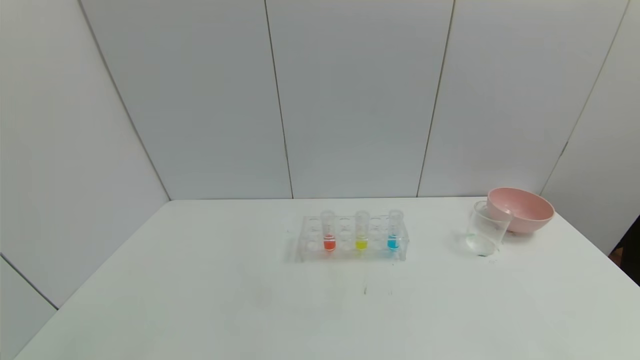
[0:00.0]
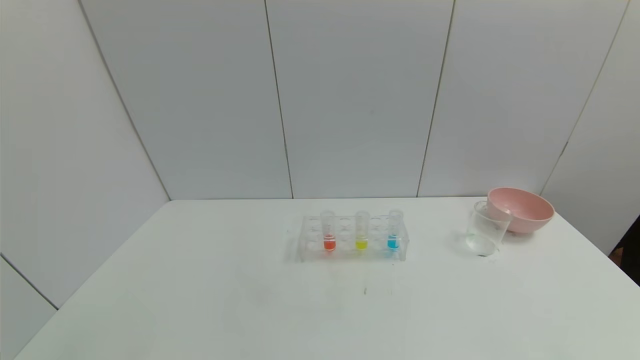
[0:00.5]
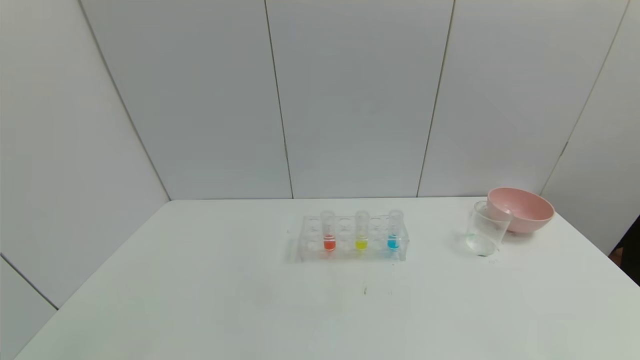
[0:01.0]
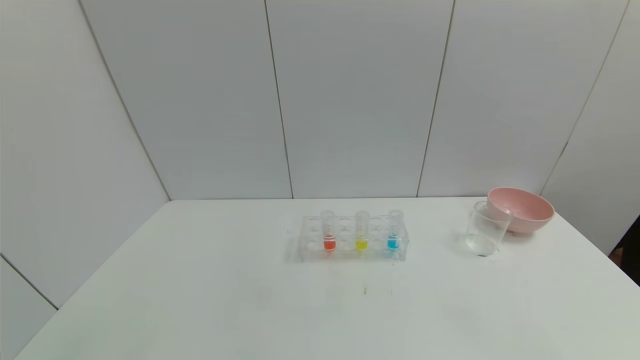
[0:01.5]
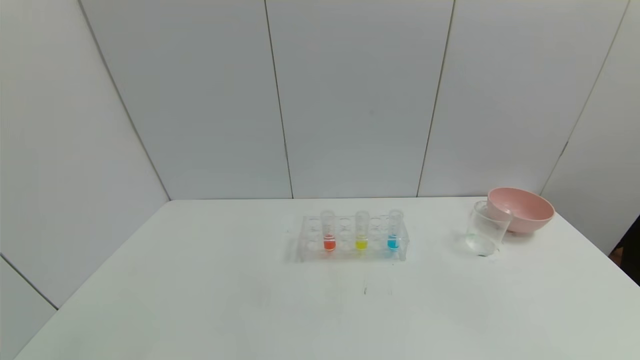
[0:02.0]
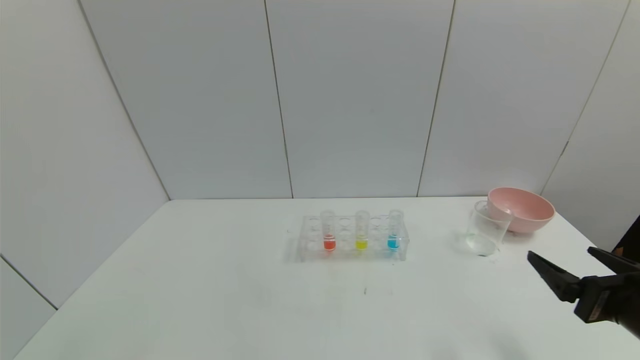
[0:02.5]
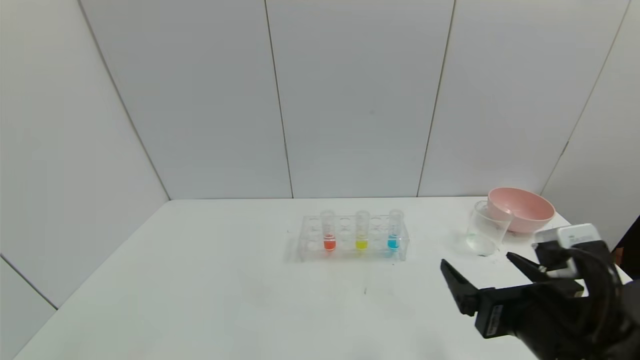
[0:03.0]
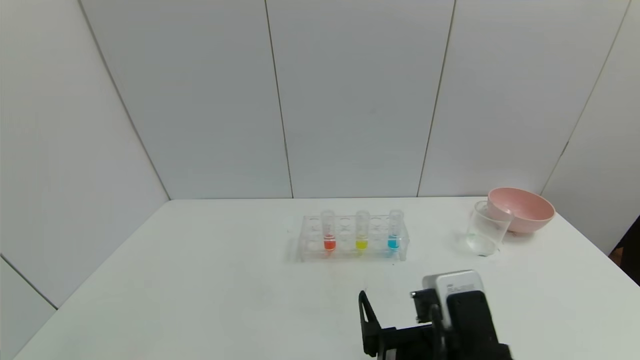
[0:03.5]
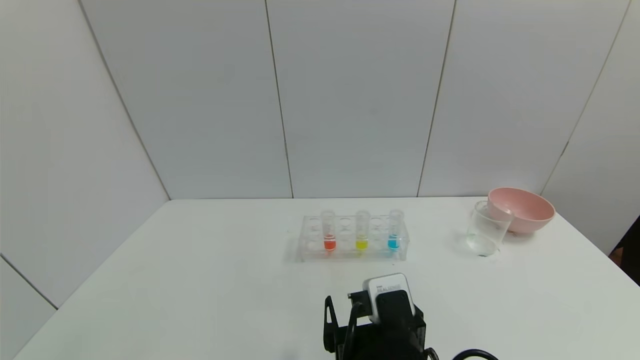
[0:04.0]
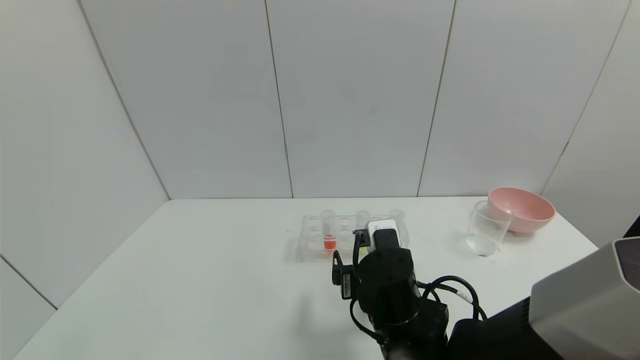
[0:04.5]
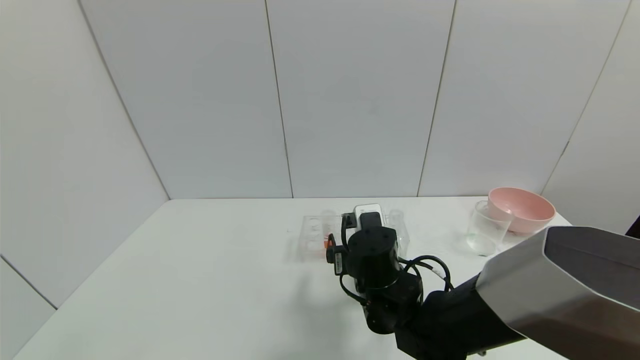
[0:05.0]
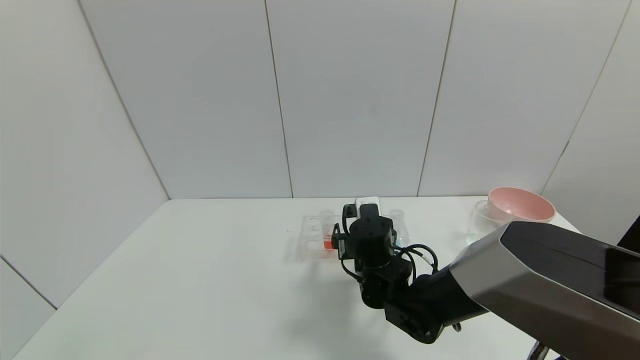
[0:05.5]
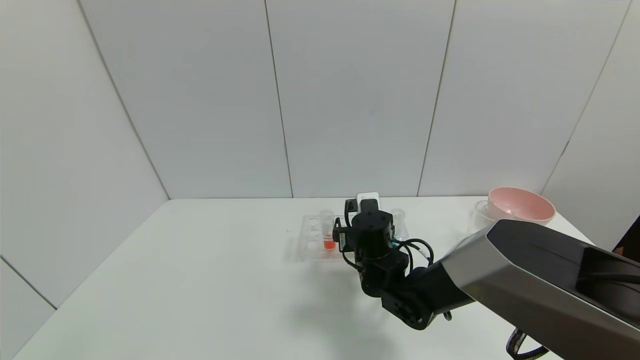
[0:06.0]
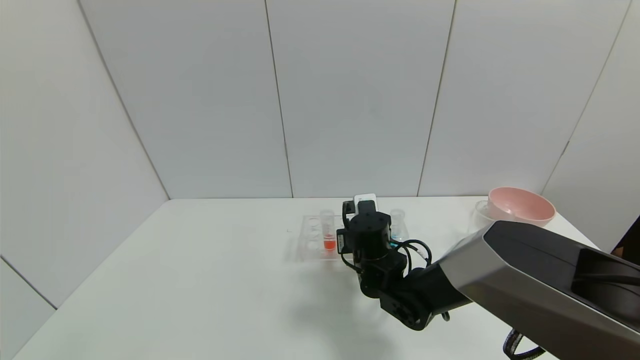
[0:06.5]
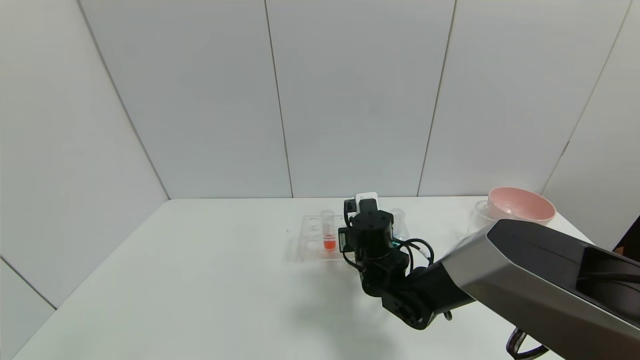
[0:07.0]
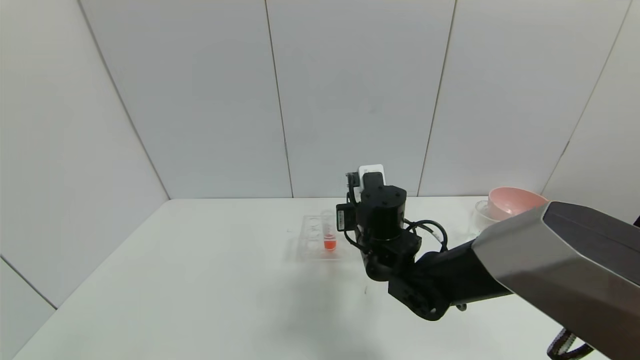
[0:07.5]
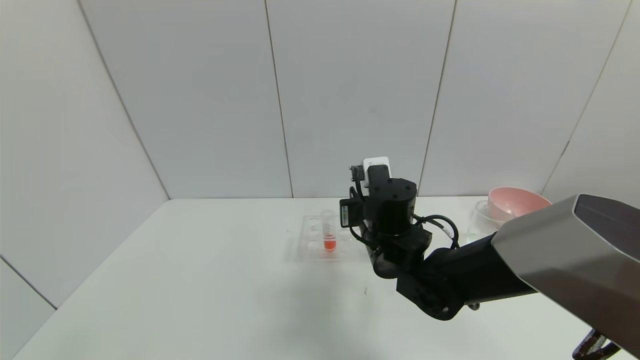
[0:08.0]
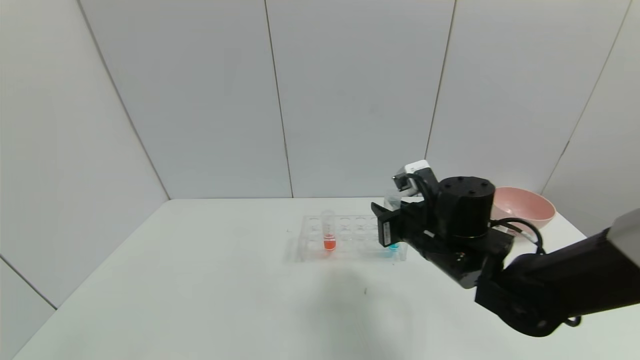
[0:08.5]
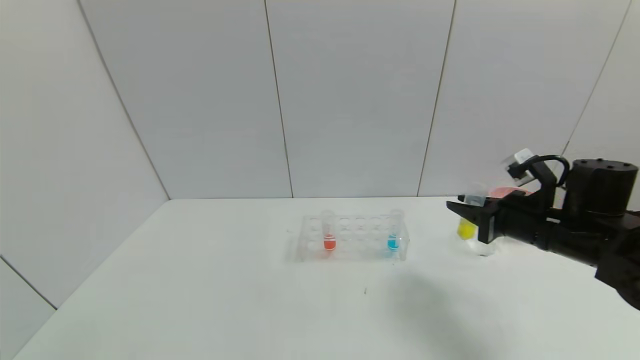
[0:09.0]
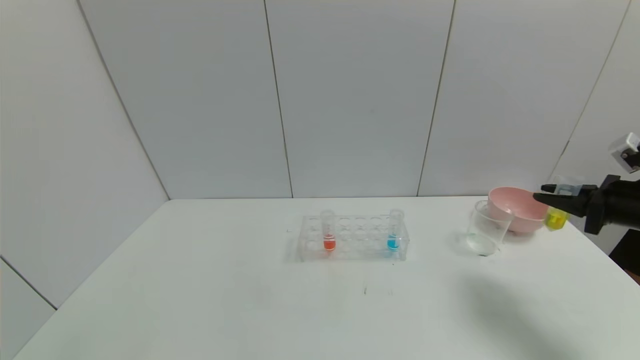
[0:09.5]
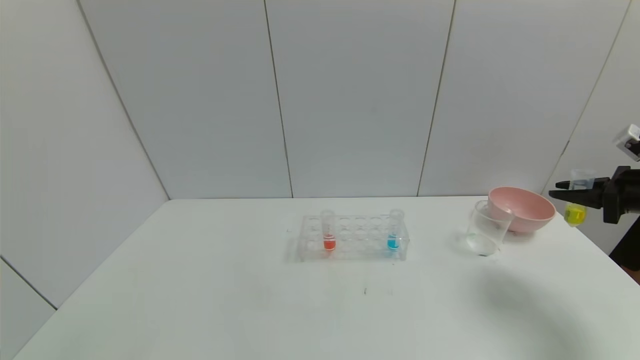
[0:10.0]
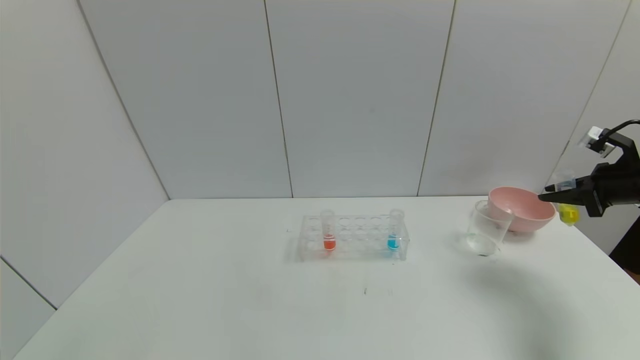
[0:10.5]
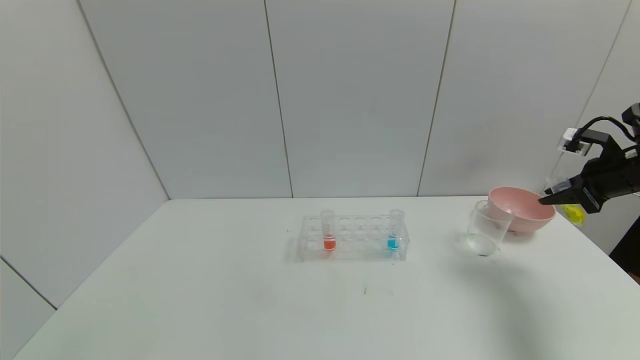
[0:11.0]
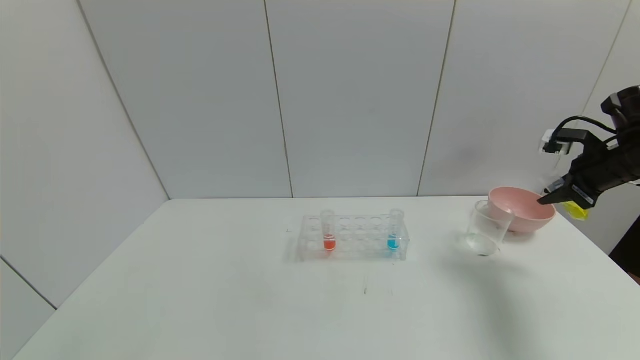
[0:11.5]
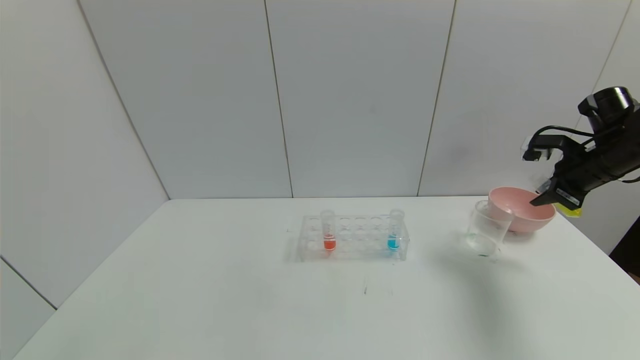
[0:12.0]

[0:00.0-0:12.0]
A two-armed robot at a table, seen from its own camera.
Task of the whole recording: pick up the test tube with yellow pigment and the test tube with blue pigment by grippers and pour them into the beaker.
Step, 0:00.0 to 0:09.0: Pick up the test tube containing the yellow reagent with right gripper.
0:02.0 to 0:04.0: The right gripper shifts approximately 30 cm to the left.
0:04.0 to 0:06.0: The right gripper shifts approximately 20 cm forward.
0:06.0 to 0:08.0: The right gripper travels upward by roughly 5 cm, and closes.
0:08.0 to 0:10.0: The right gripper moves to the right, approximately 40 cm.
0:10.0 to 0:12.0: The right gripper travels forward and to the left by roughly 10 cm.

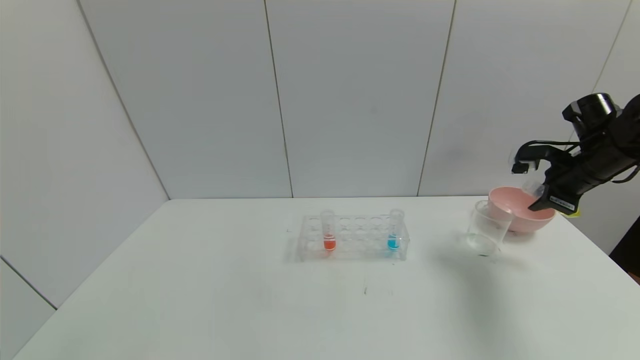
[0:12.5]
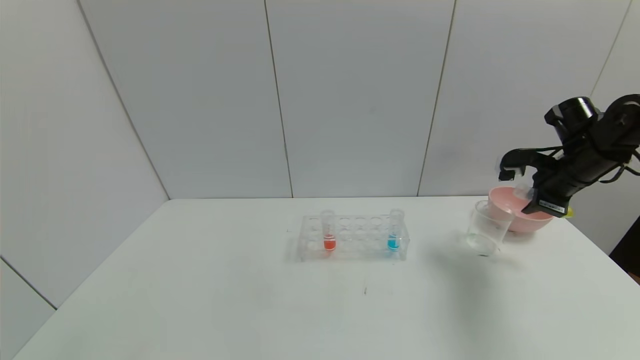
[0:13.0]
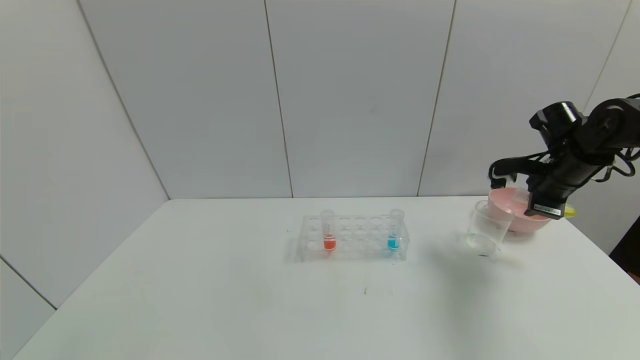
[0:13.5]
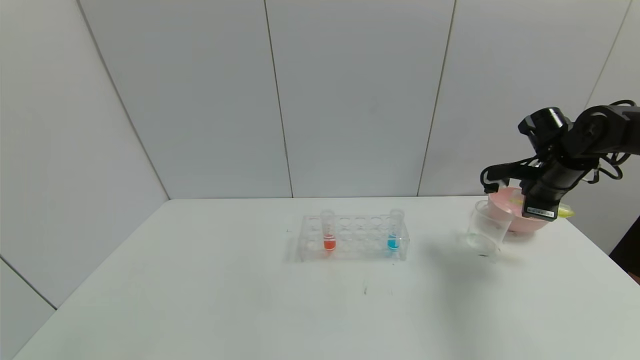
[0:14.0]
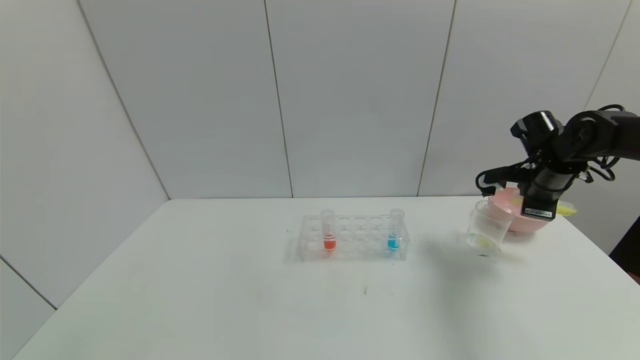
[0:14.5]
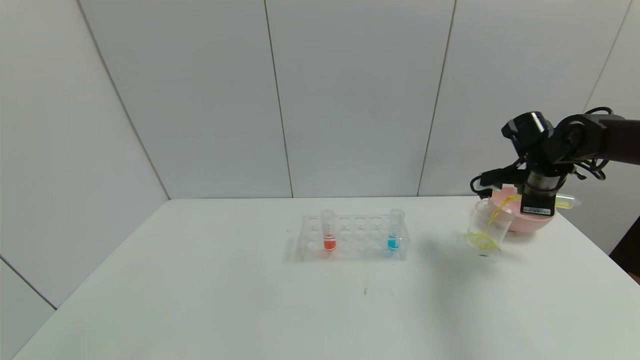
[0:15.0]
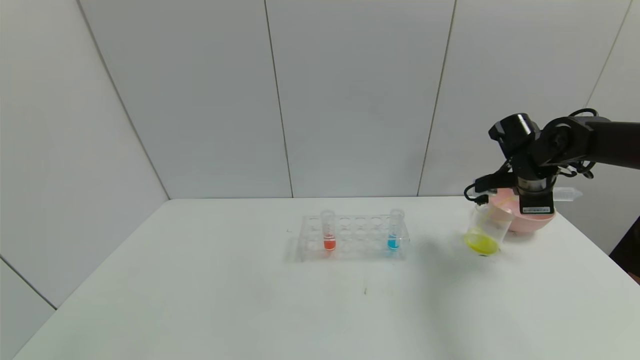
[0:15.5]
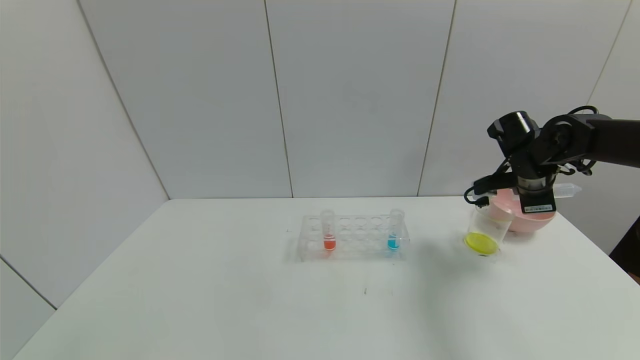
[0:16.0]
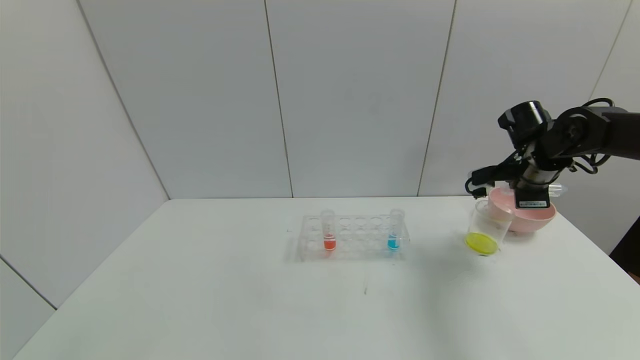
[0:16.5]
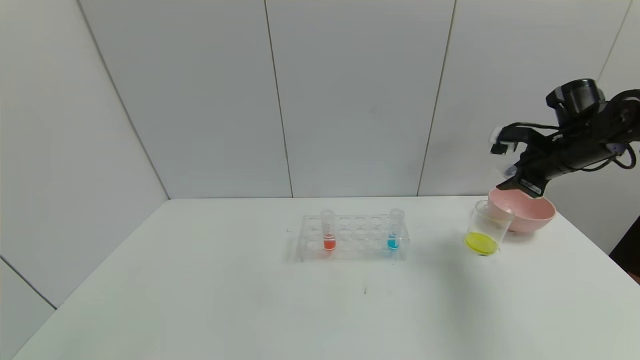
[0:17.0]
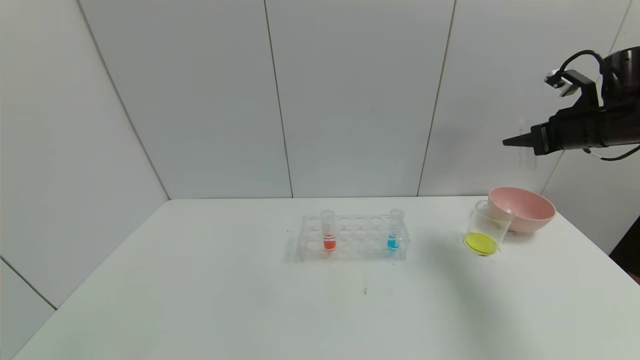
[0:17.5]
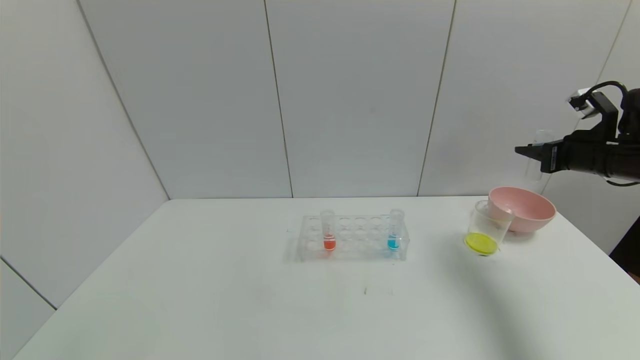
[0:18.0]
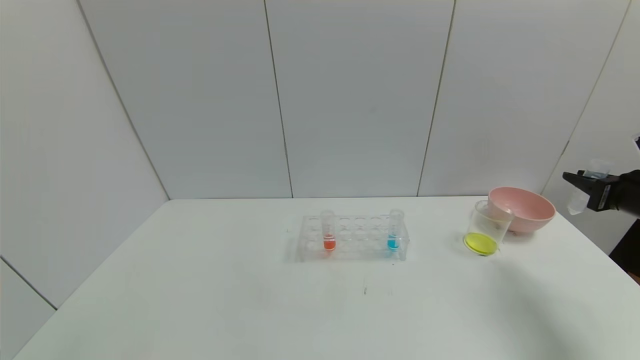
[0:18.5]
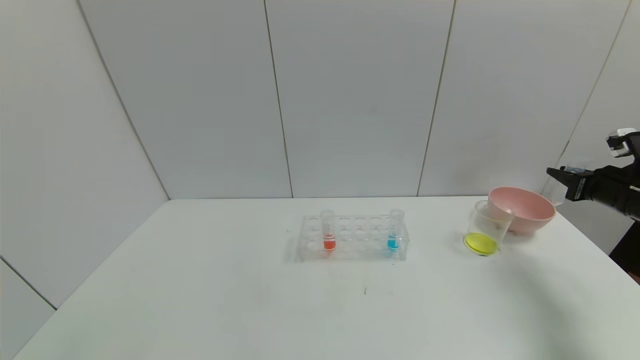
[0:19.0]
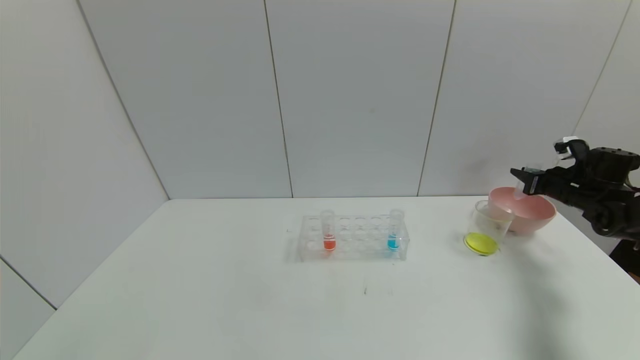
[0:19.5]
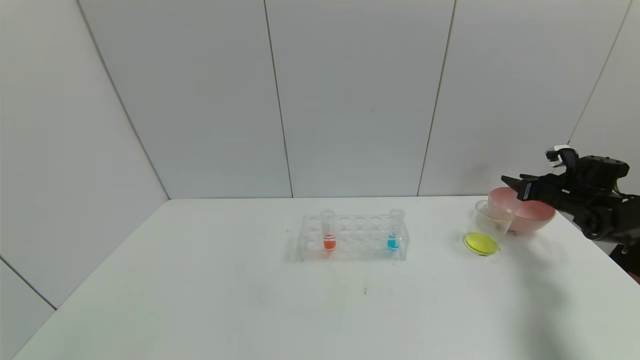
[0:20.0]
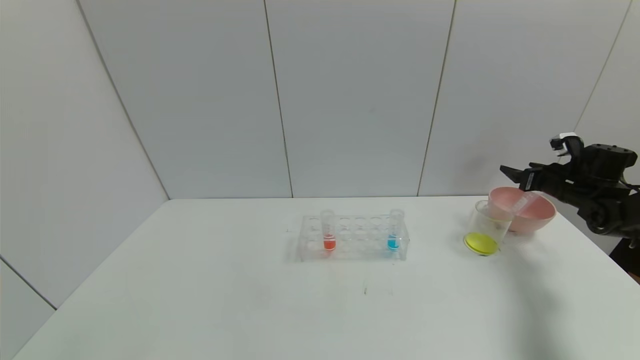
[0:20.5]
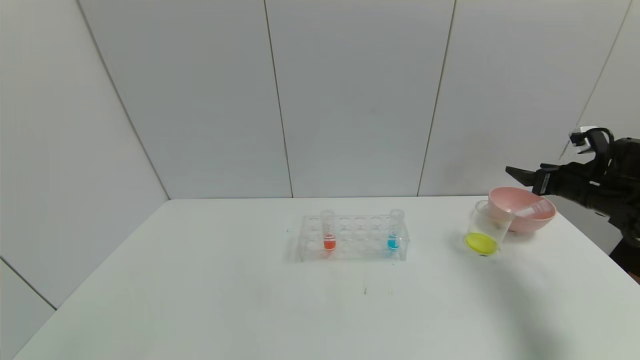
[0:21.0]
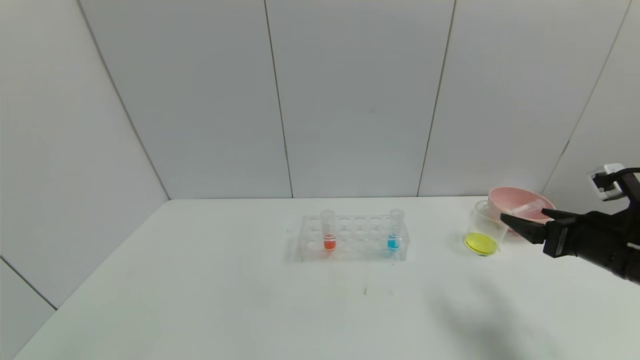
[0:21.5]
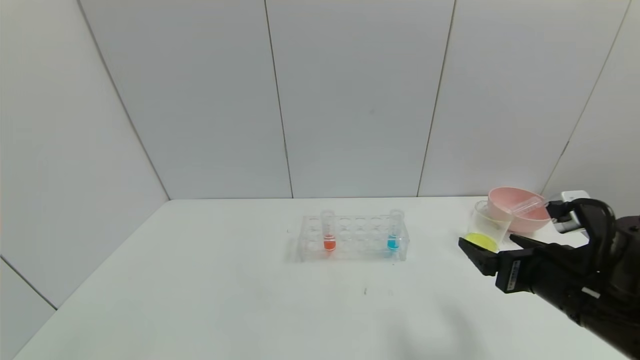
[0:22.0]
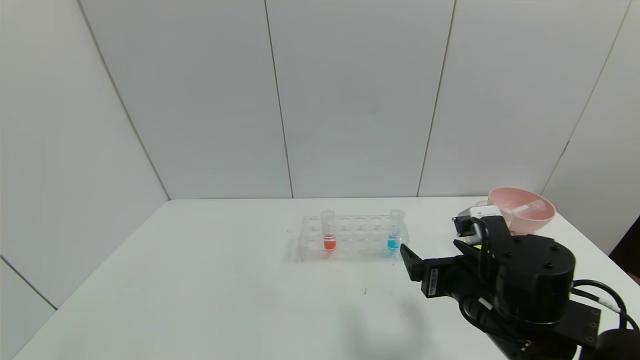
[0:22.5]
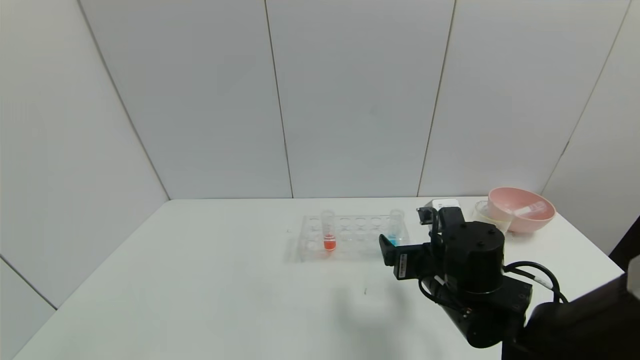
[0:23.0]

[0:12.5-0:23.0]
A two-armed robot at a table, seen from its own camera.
Task of the whole recording: pick up the test tube with yellow pigment and the test tube with blue pigment by grippers and pour them into the beaker.
Step, 0:12.5 to 0:17.5: Pour the yellow reagent into the graduated cylinder with right gripper.
Step, 0:18.0 to 0:20.5: Place the test tube into the bowl with right gripper.
0:12.5 to 0:14.5: The right gripper shifts by some 5 cm.
0:16.5 to 0:19.0: The right gripper goes about 15 cm to the right.
0:19.0 to 0:21.0: The right gripper goes forward and returns, about 10 cm each way, and opens.
0:21.0 to 0:23.0: The right gripper is displaced to the left by about 30 cm.
